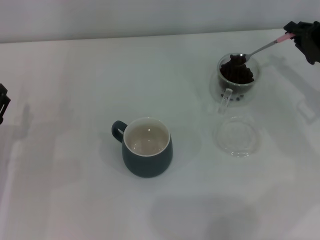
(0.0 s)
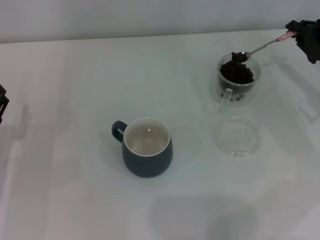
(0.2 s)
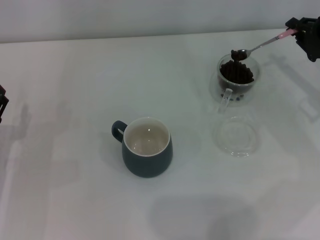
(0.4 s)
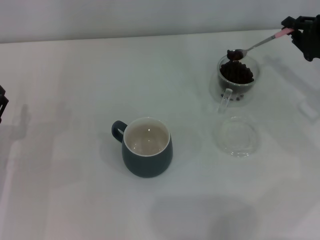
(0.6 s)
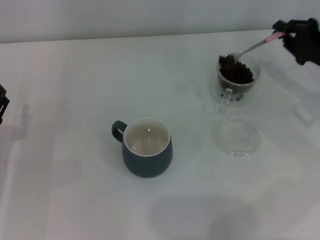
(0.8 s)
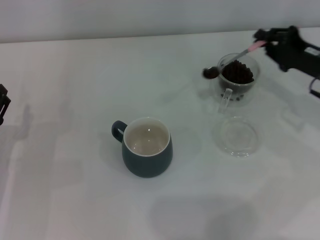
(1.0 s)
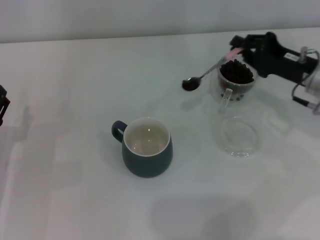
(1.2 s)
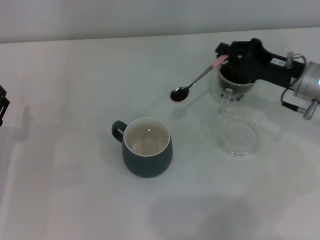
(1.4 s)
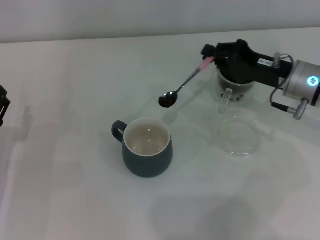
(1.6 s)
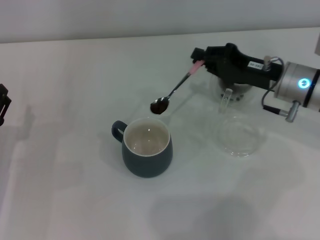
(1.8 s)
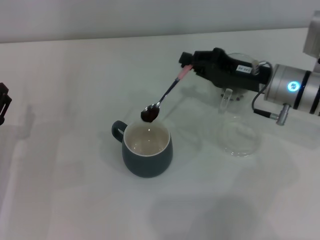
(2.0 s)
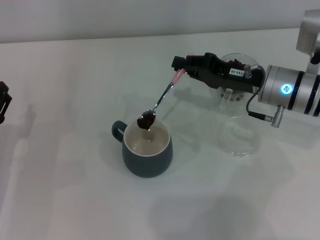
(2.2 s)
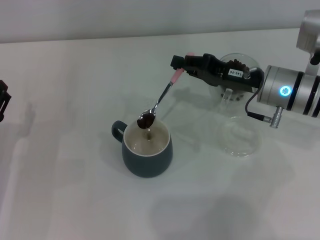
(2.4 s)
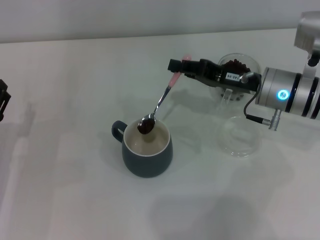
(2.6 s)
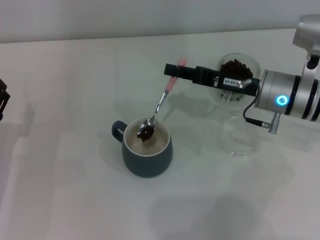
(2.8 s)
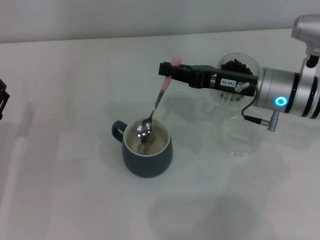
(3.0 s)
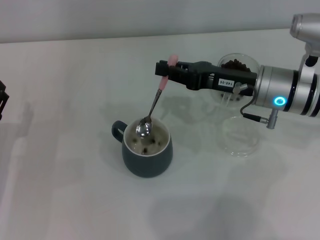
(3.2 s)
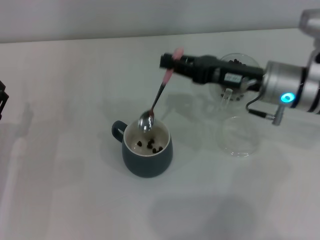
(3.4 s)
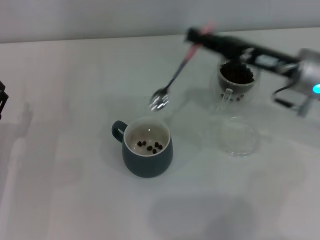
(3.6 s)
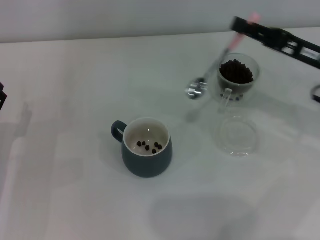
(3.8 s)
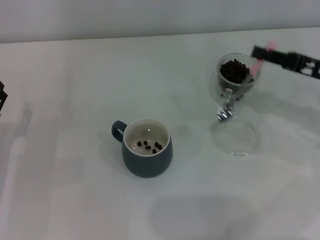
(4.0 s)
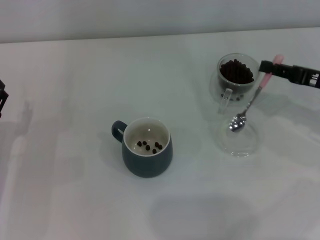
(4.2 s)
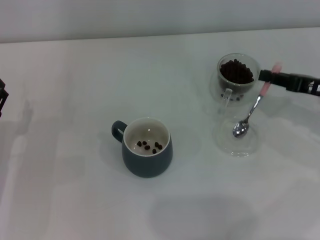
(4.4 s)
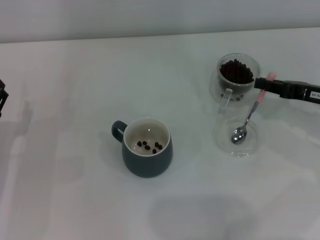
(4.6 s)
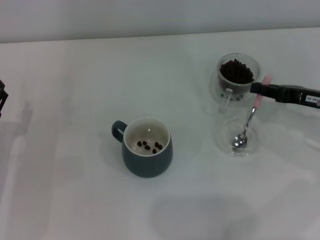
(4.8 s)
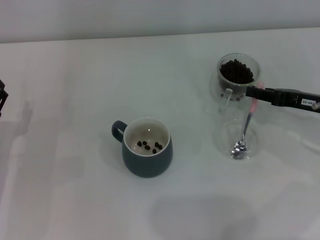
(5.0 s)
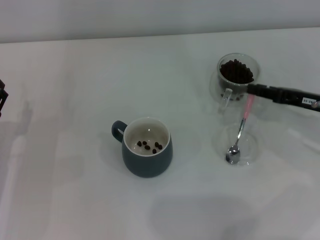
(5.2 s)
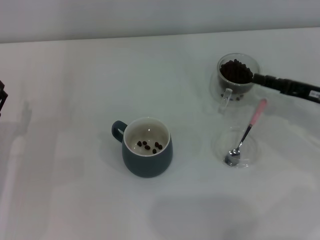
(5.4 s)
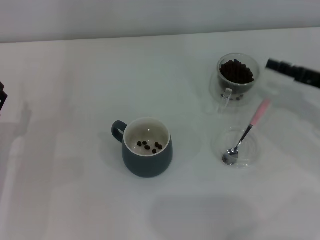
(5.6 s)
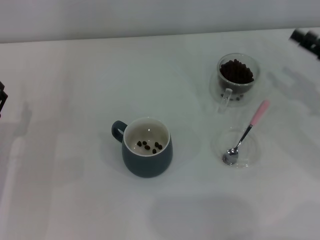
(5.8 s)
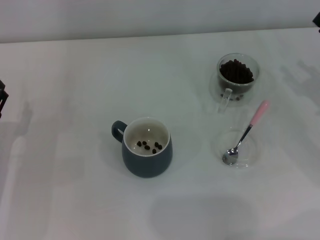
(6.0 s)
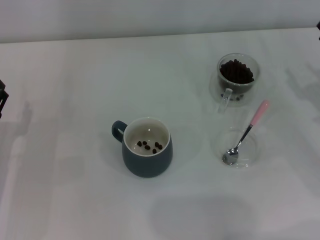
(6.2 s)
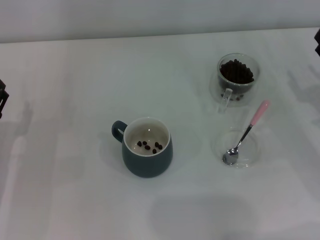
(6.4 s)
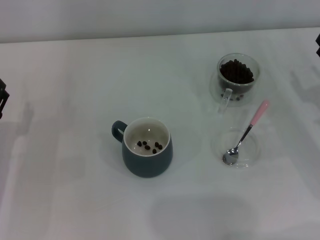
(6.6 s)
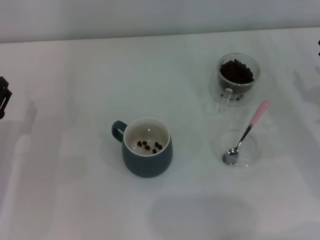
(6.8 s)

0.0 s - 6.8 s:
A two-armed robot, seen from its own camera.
Task of the whole recording: Use a pink spoon to take out the coffee beans from the glass and pour them into the gray cup.
Step, 0.0 s - 3.0 s: Scoop a spoonful of beans into the cup with the right gripper.
Step, 3.2 s - 5.2 s: Place the spoon back in its original place with the right gripper.
0.0 s - 1.4 s: The right gripper moves to the left, approximately 5 cm.
1.4 s - 2.8 s: The right gripper is displaced to the left by about 5 cm.
2.8 s - 4.0 s: The right gripper goes approximately 15 cm to the right.
4.0 s - 5.4 s: The right gripper opens up.
